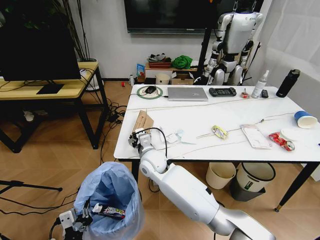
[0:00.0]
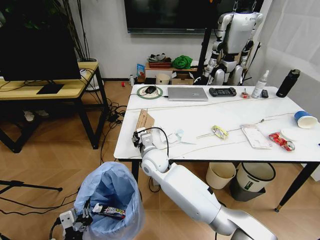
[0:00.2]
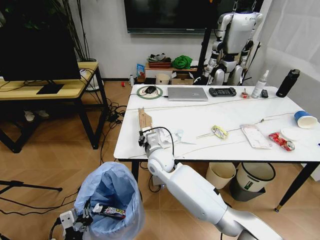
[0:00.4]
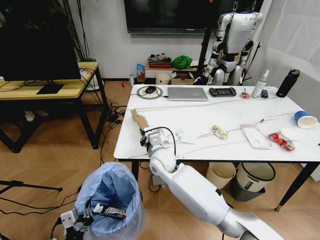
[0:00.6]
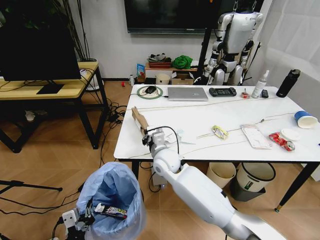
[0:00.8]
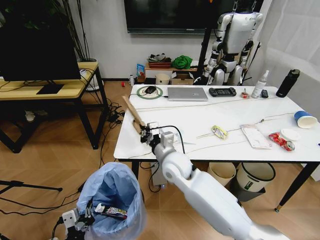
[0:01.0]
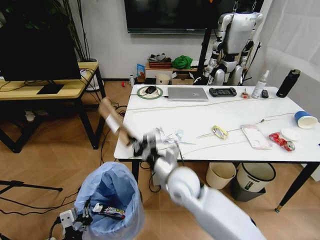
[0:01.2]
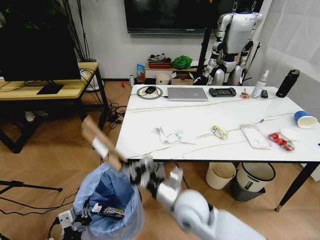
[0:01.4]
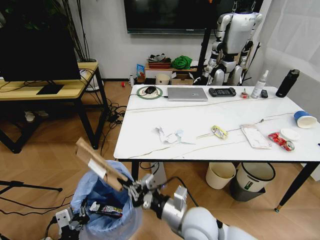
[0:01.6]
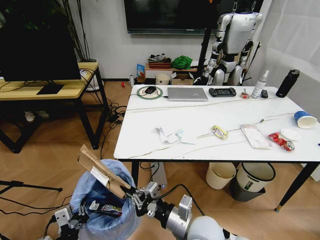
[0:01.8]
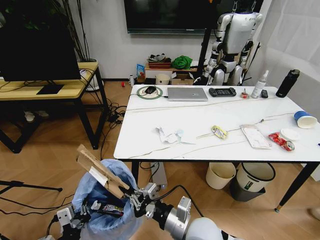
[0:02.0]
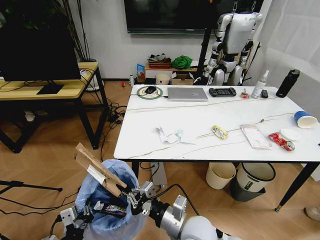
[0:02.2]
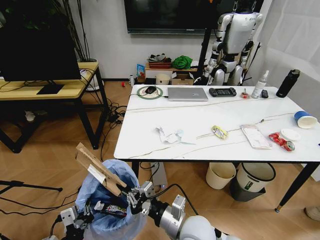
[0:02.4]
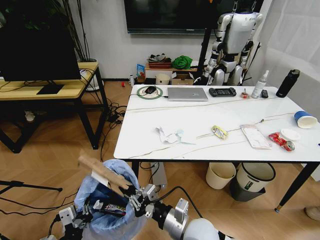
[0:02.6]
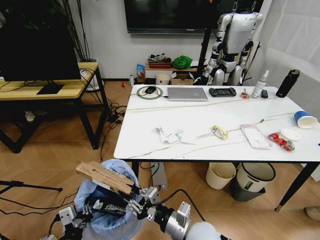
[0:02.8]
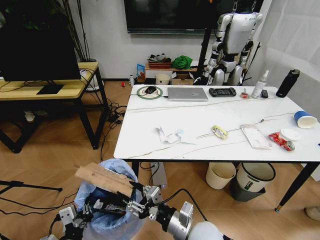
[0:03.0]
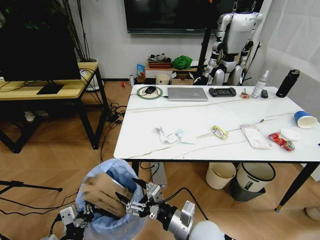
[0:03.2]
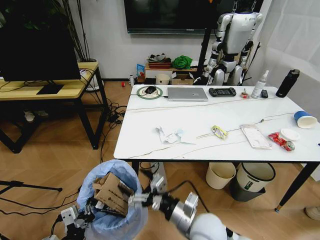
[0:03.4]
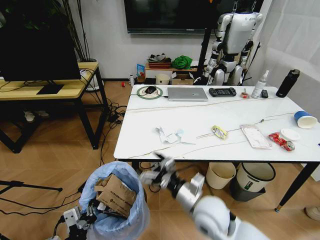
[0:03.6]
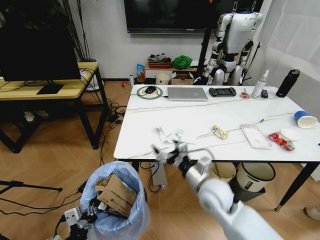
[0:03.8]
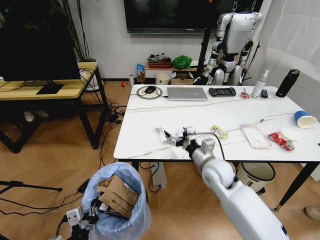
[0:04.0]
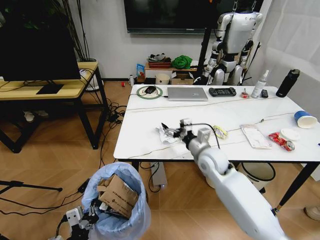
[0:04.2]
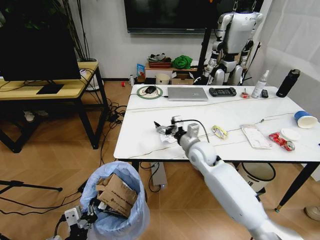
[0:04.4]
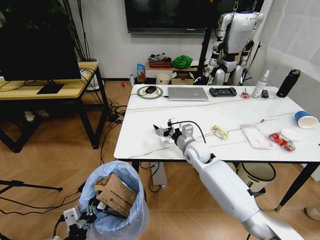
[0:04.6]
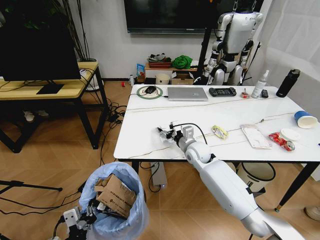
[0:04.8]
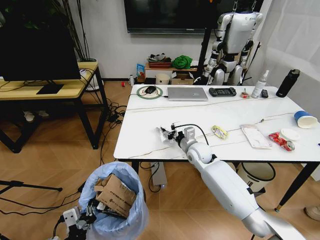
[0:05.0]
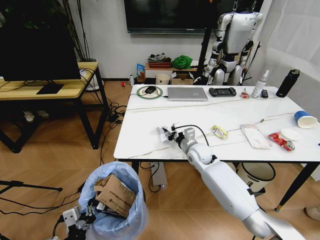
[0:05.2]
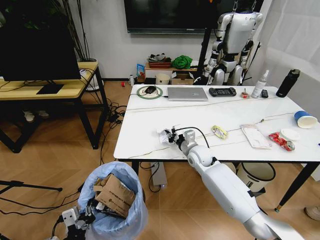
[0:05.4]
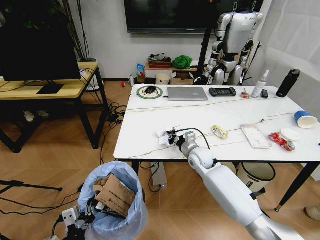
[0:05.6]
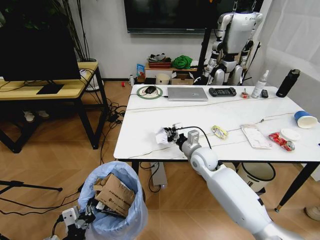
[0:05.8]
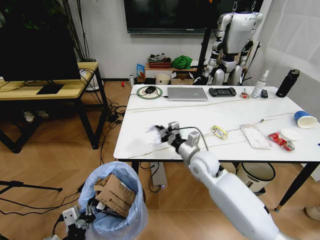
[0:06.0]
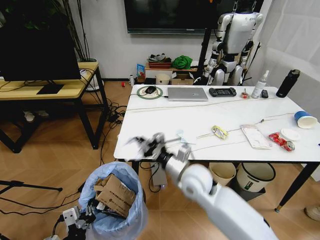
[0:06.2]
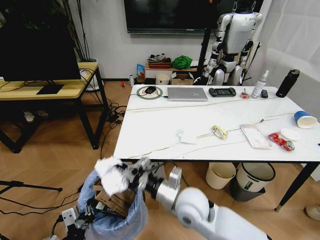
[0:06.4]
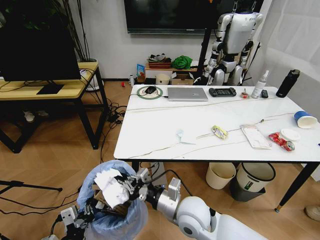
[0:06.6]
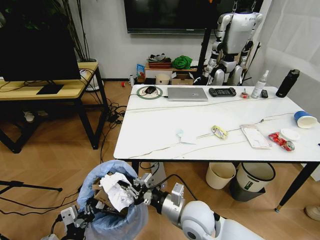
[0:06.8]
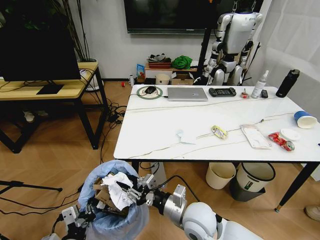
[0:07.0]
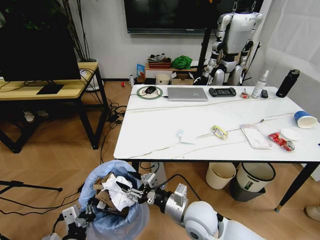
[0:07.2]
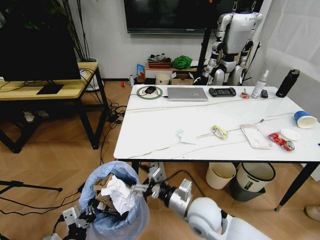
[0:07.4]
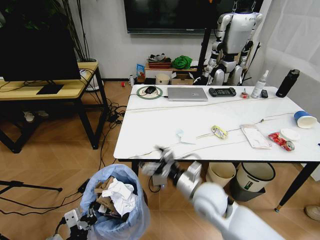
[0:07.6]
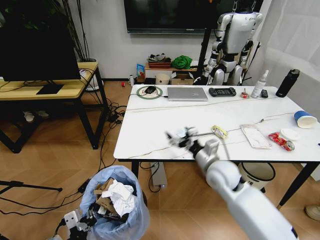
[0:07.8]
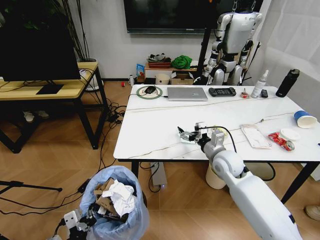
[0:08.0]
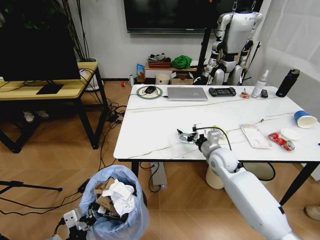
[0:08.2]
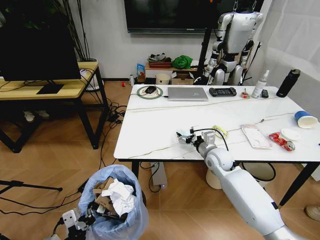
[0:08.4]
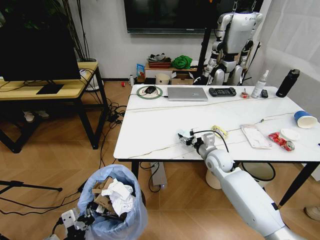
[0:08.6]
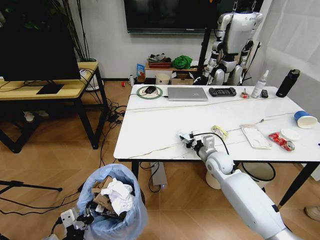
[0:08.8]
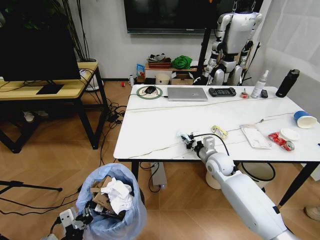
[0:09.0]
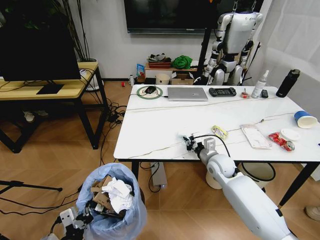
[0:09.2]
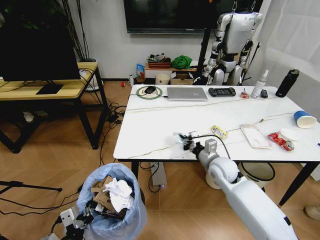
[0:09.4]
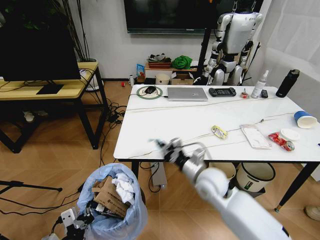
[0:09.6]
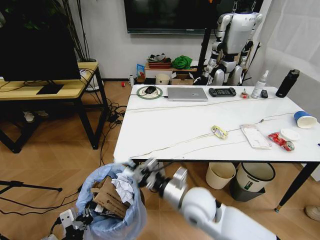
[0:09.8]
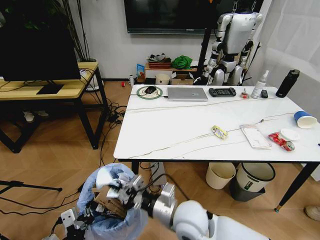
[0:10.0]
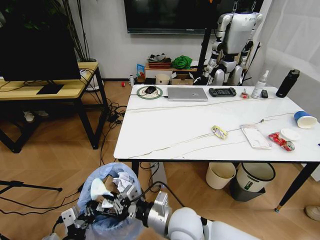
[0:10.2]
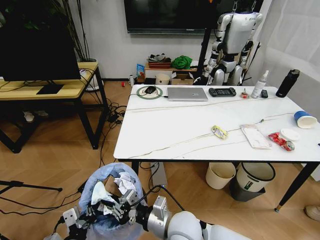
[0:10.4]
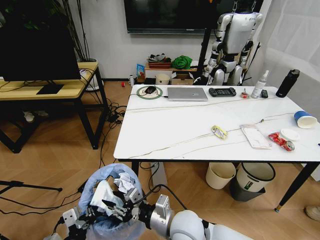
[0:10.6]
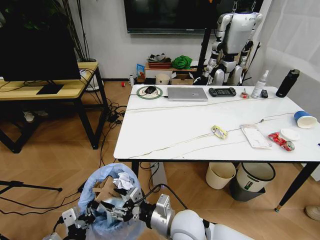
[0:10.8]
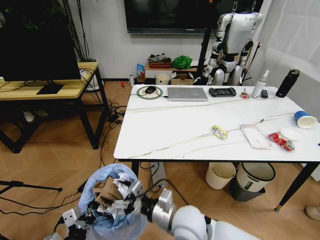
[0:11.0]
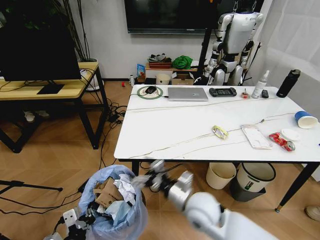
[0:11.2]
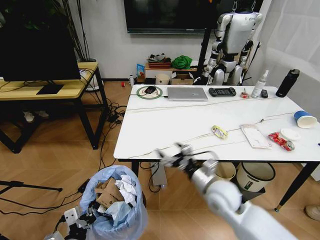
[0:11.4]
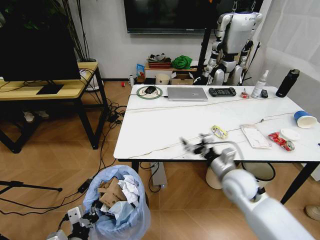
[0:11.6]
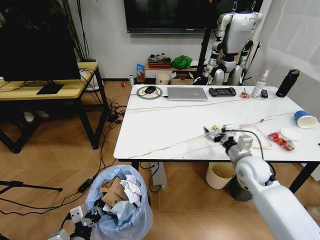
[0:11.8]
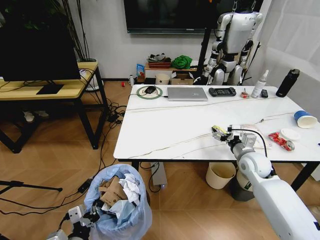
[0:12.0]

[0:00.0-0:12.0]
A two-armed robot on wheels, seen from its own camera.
Task of the whole recording: Pick up the trash bin and place the trash from the table into it.
0:00.0 to 0:01.6: The right gripper shifts approximately 25 cm backward and to the right, and closes up.
0:01.6 to 0:03.0: The right gripper opens its fingers.
0:03.0 to 0:04.4: The right gripper shifts approximately 25 cm forward, and opens.
0:04.4 to 0:06.0: The right gripper travels backward by some 5 cm, and closes its fingers.
0:06.0 to 0:07.6: The right gripper shifts some 10 cm backward, and opens up.
0:07.6 to 0:09.0: The right gripper moves forward and to the right, about 15 cm, and closes its fingers.
0:09.0 to 0:10.4: The right gripper moves backward and to the left, some 30 cm.
0:10.4 to 0:12.0: The right gripper goes roughly 35 cm to the right and forward, and opens.

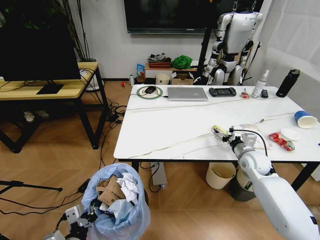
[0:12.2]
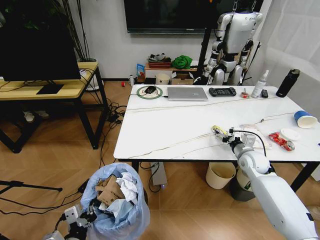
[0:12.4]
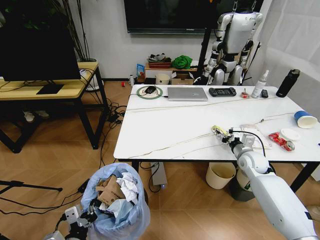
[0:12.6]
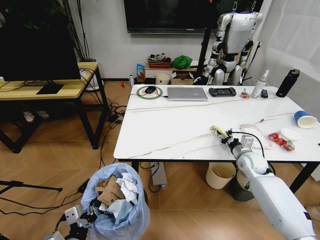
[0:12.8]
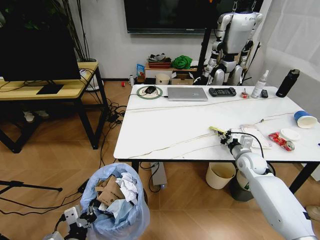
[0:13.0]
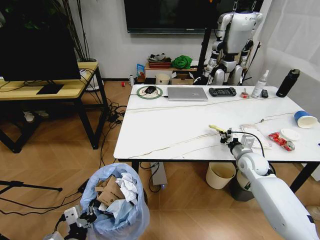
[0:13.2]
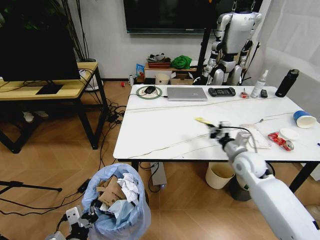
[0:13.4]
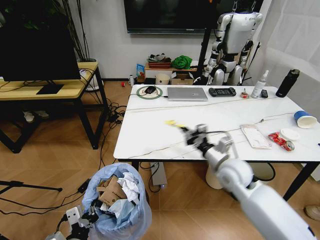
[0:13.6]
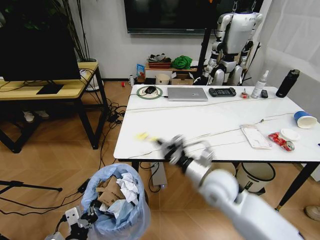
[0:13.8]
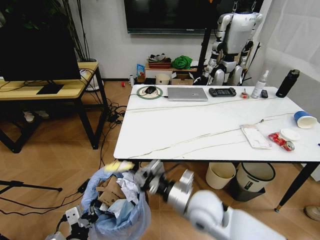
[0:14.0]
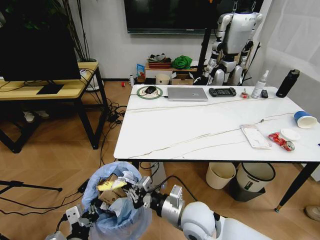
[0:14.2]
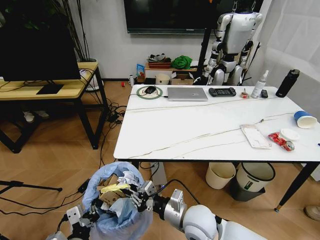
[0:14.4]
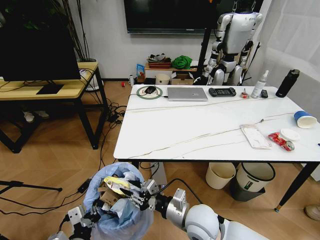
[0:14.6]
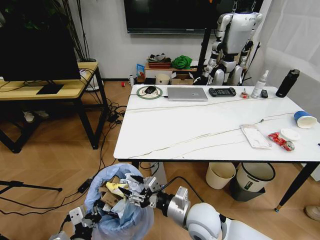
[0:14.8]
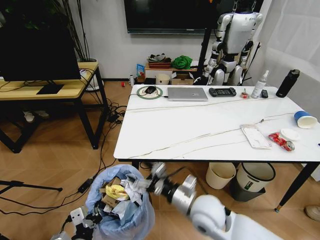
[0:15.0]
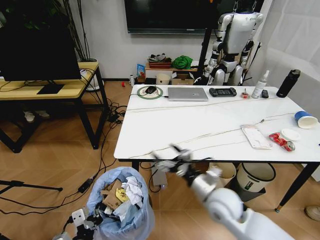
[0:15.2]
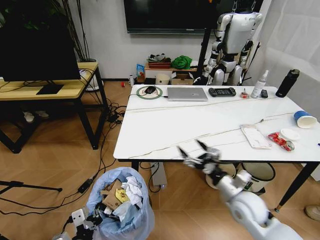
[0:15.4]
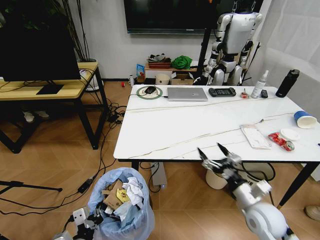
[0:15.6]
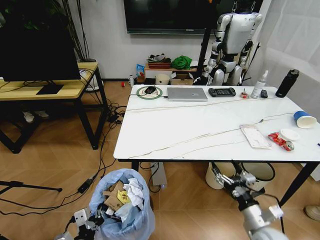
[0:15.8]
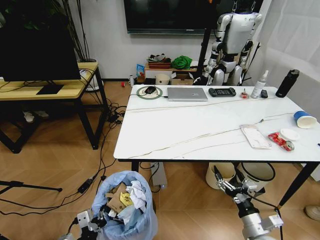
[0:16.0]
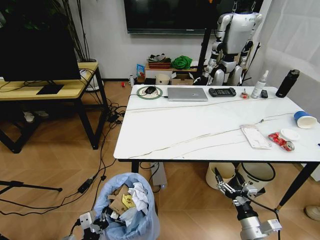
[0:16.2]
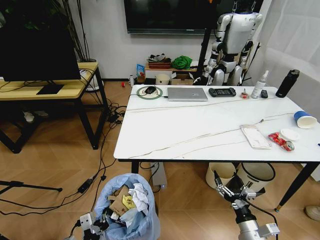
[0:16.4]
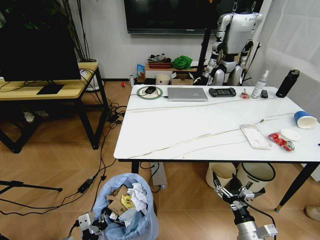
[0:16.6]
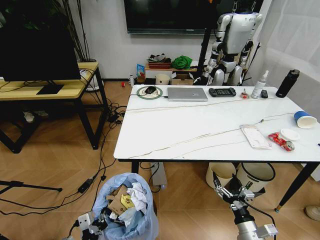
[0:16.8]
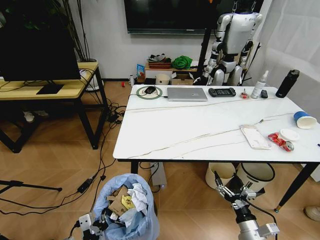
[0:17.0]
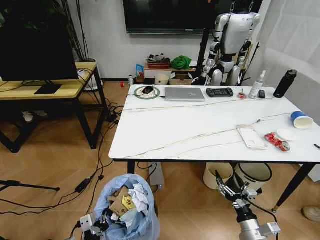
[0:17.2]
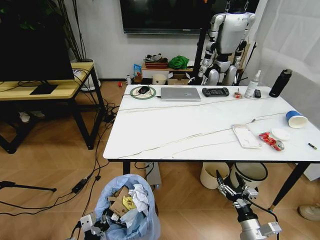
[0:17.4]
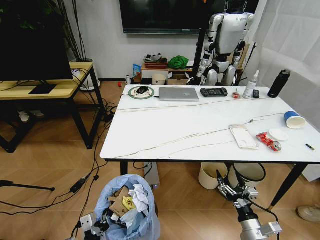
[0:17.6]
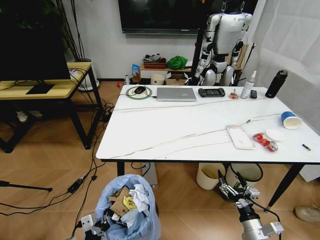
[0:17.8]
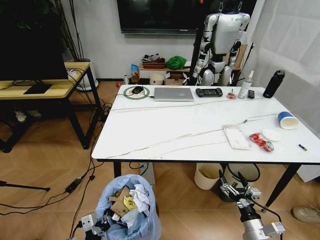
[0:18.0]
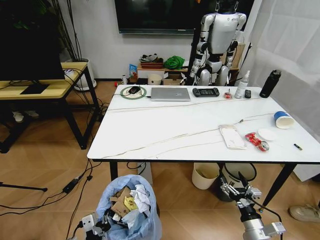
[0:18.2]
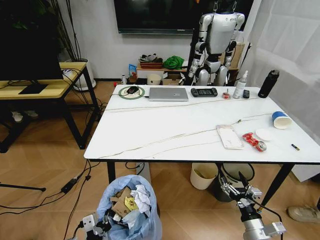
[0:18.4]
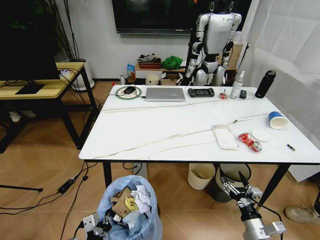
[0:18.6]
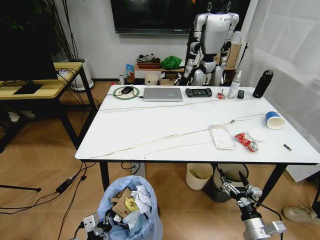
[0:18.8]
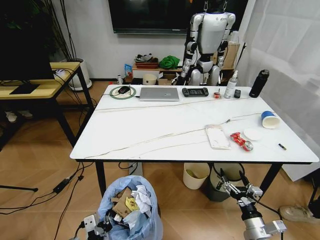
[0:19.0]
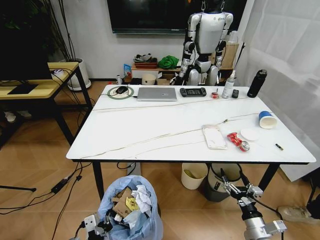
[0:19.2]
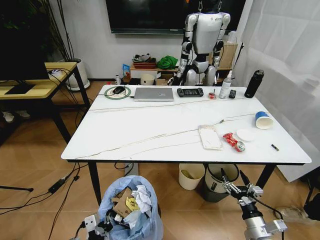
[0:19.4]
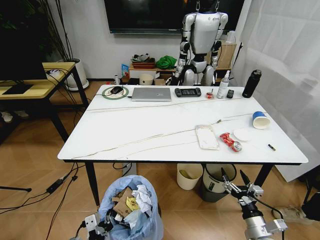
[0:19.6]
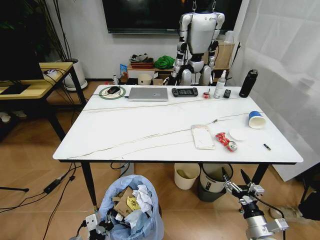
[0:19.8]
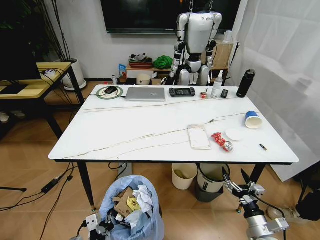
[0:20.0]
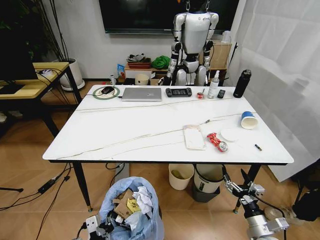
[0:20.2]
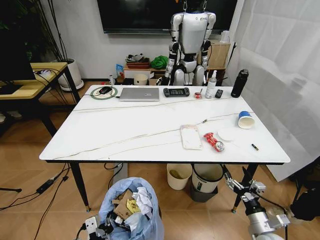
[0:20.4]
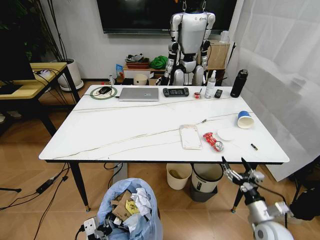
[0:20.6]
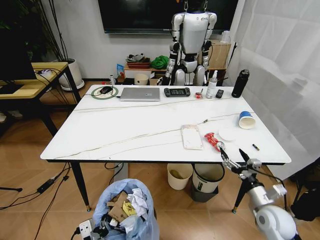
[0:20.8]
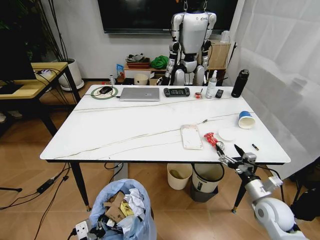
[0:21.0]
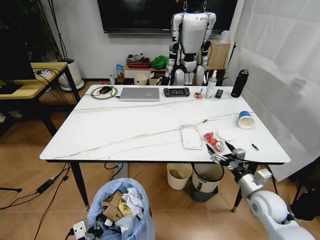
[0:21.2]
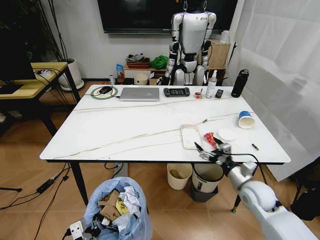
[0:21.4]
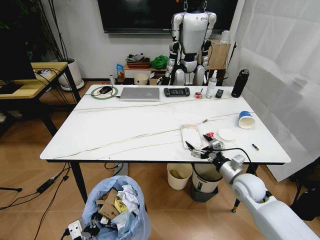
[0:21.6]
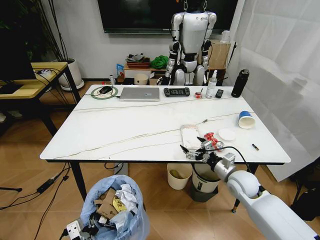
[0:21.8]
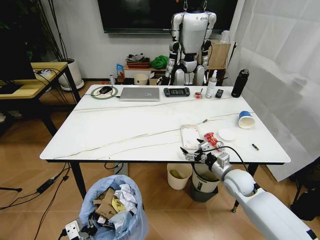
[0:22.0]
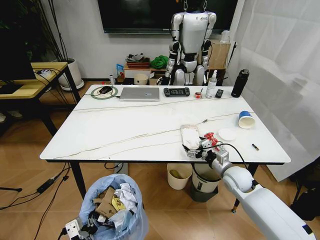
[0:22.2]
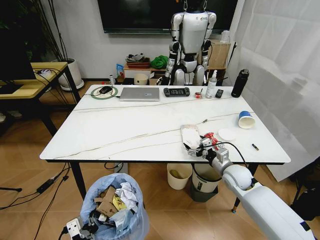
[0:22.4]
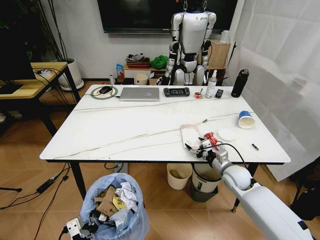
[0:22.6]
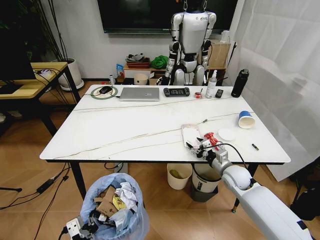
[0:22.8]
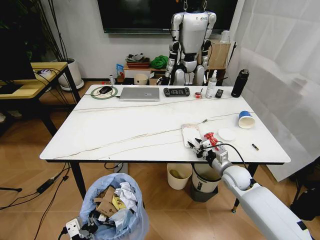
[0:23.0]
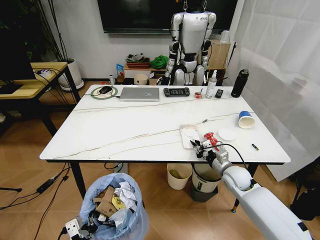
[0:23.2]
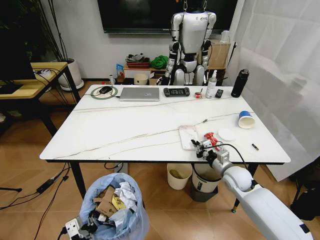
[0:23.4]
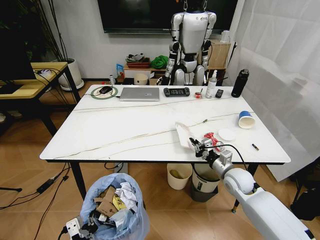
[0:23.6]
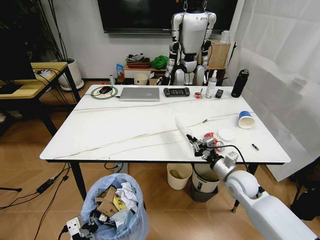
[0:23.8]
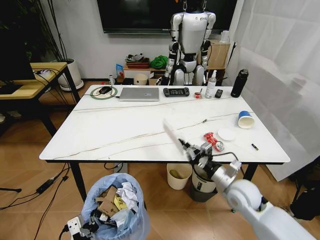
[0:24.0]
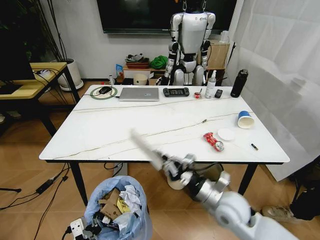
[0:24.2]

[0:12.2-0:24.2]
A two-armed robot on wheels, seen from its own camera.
Task of the whole recording: Pick up the trash bin and place the trash from the table into it.
0:12.2 to 0:13.8: The right gripper goes some 20 cm to the left and backward, and closes up.
0:13.8 to 0:15.2: The right gripper travels backward and downward by some 5 cm, and opens up.
0:15.2 to 0:16.6: The right gripper goes about 20 cm downward, backward and to the right.
0:19.8 to 0:21.2: The right gripper moves forward and upward, some 15 cm.
0:21.2 to 0:22.6: The right gripper goes roughly 10 cm forward and to the left.
0:22.6 to 0:24.2: The right gripper moves backward, to the left and upward, roughly 15 cm, and closes up.
